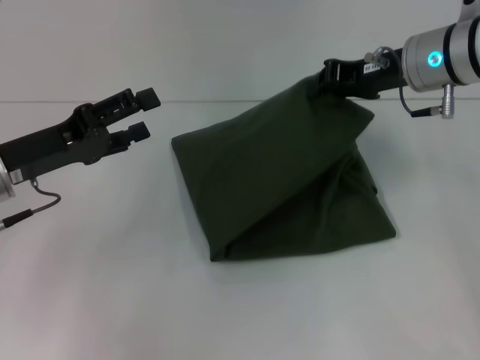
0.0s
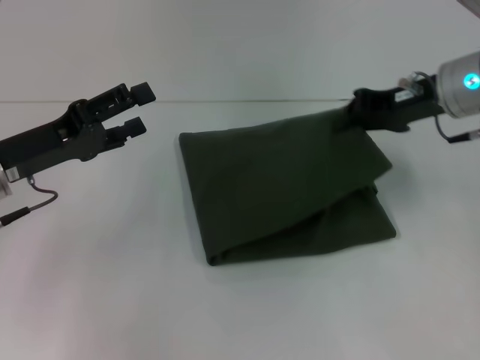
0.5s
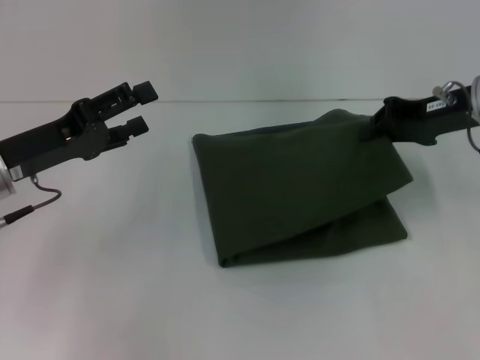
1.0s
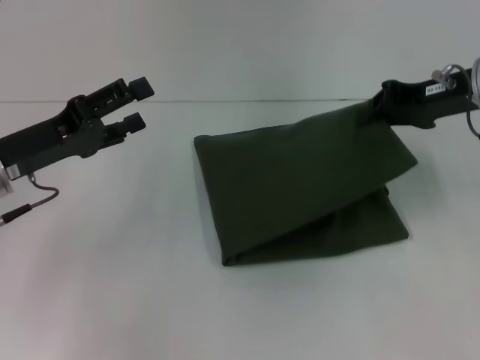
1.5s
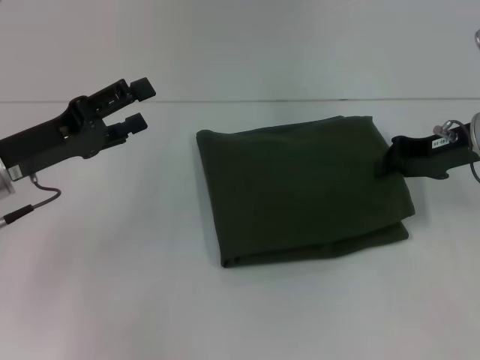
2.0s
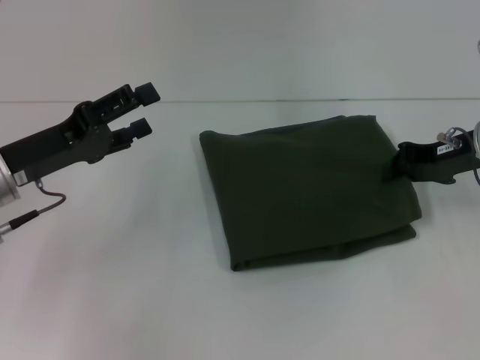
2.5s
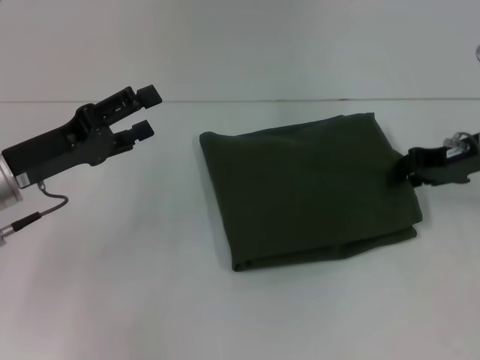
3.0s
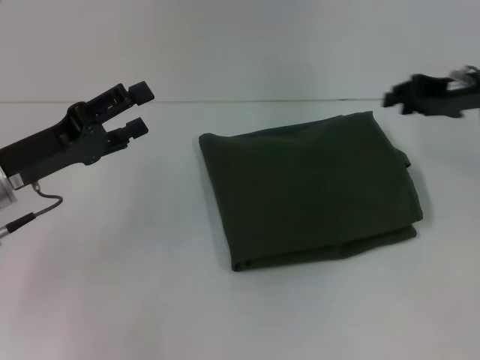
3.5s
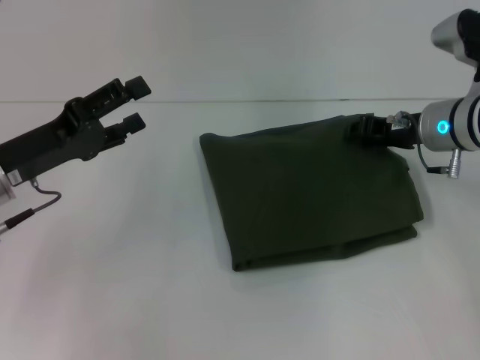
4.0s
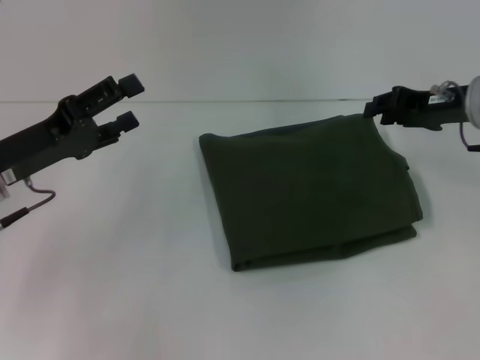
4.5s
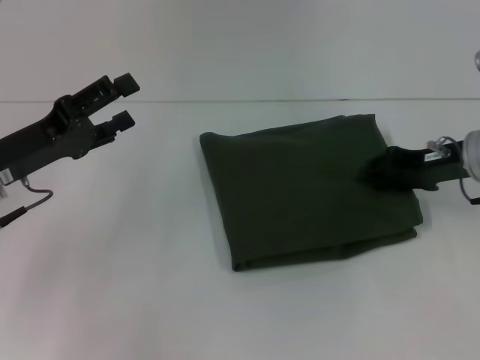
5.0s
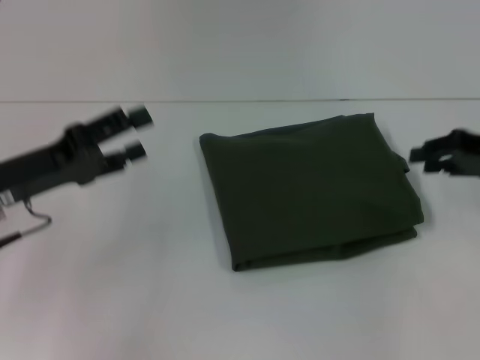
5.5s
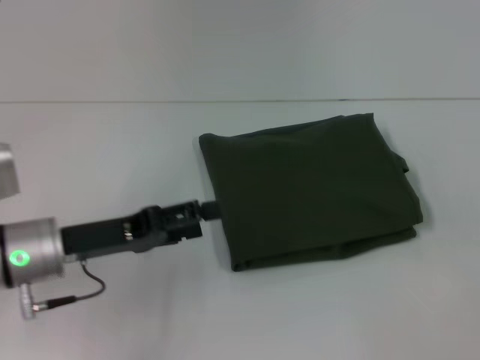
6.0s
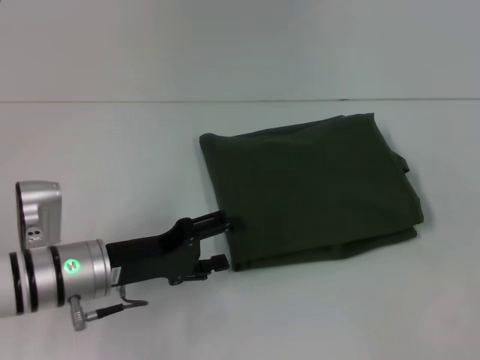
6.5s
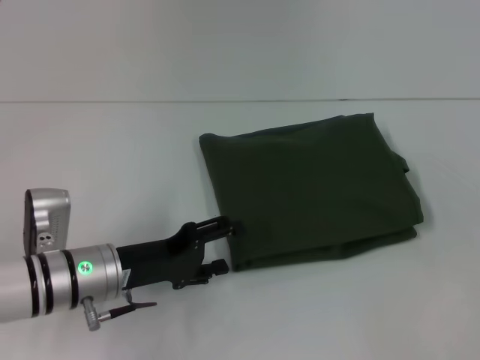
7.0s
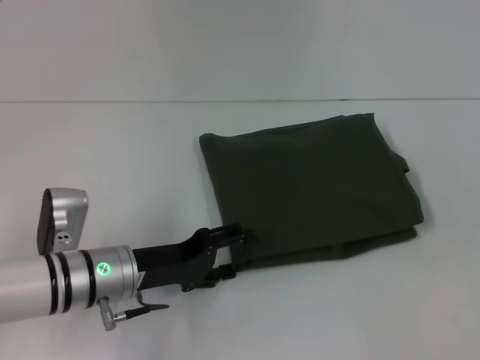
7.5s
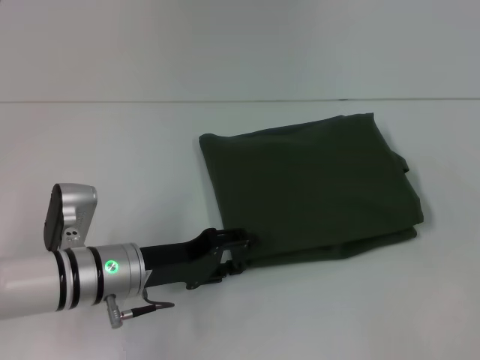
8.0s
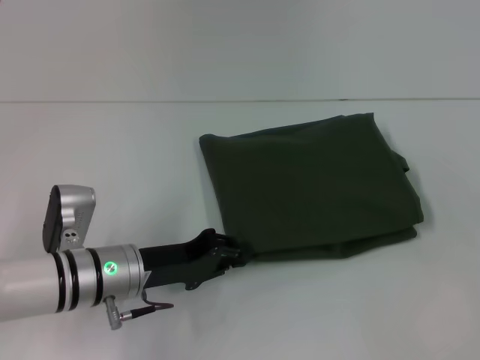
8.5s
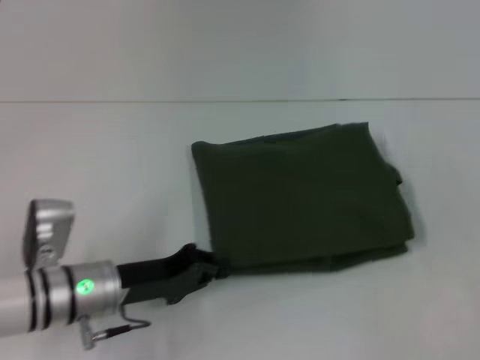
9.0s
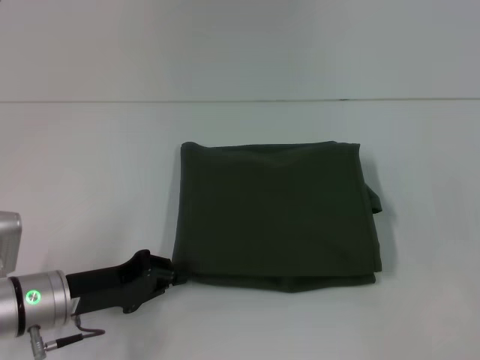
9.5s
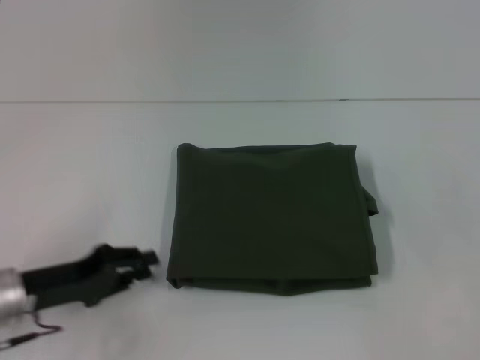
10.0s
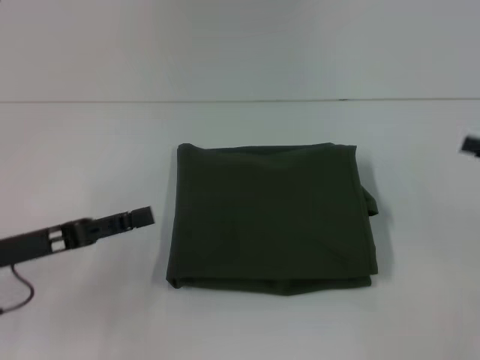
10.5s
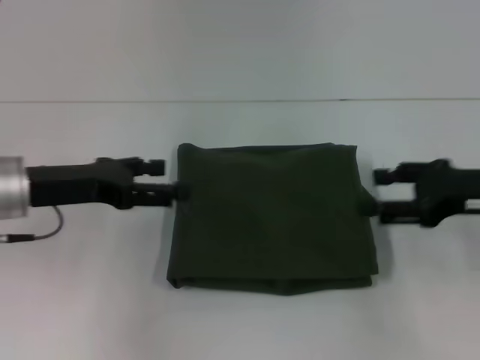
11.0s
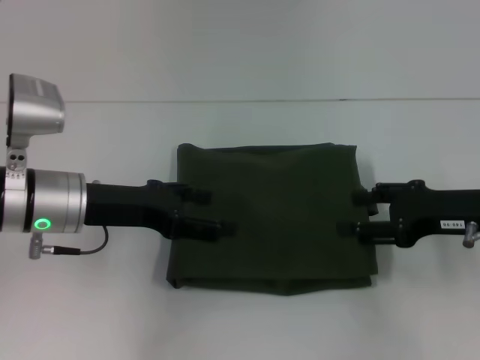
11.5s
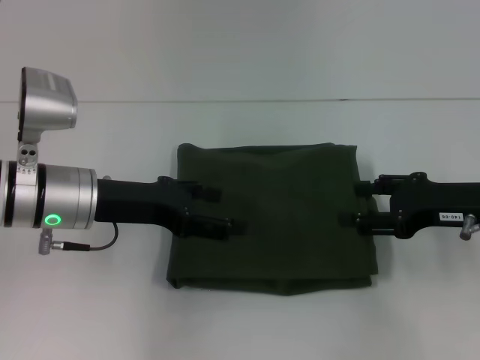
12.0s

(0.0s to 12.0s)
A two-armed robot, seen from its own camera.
0.0s - 2.0s: The right gripper shifts about 5 cm to the right.
2.0s - 4.0s: The right gripper ends up approximately 5 cm from where it was, and opens.
4.0s - 6.0s: The left gripper changes place by roughly 5 cm. The right gripper shifts some 20 cm to the right and backward.
6.0s - 8.0s: The left gripper goes about 10 cm to the right and downward.
8.0s - 10.0s: The left gripper travels to the left by approximately 10 cm, and closes.
10.0s - 12.0s: The right gripper goes approximately 15 cm to the left; the left gripper heads upward, forward and to the right, covering roughly 15 cm, and opens its fingers.
